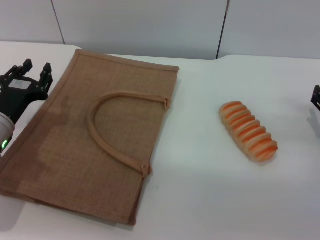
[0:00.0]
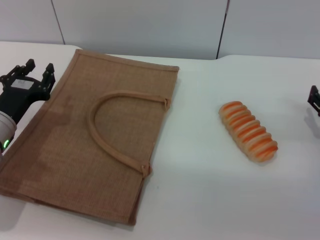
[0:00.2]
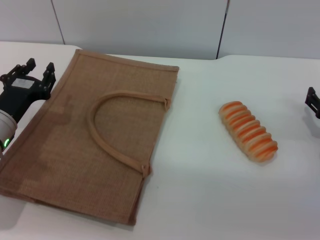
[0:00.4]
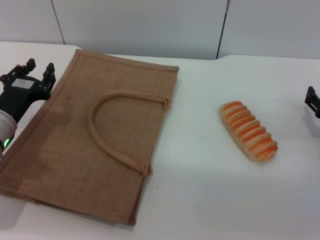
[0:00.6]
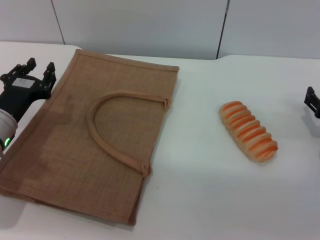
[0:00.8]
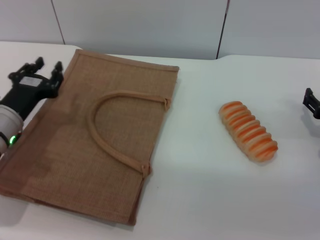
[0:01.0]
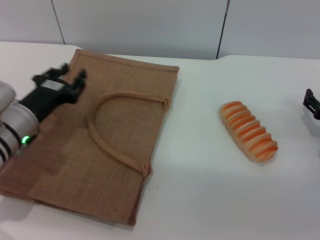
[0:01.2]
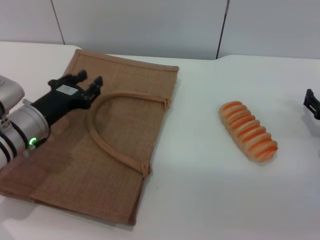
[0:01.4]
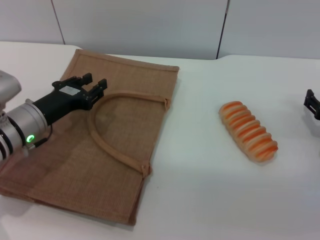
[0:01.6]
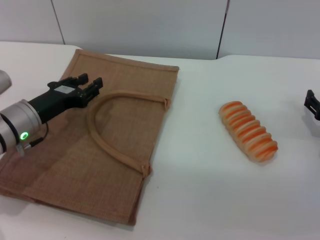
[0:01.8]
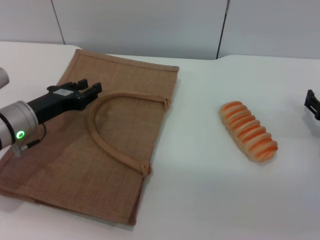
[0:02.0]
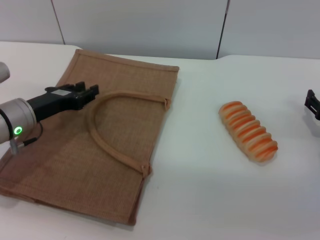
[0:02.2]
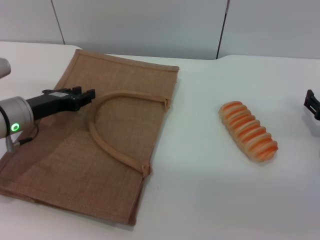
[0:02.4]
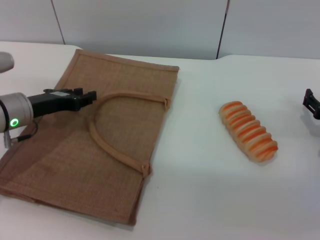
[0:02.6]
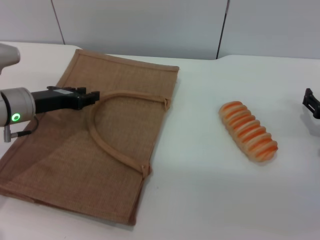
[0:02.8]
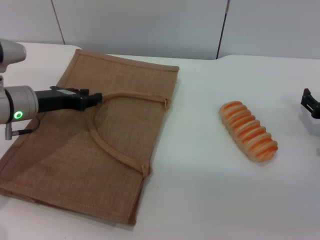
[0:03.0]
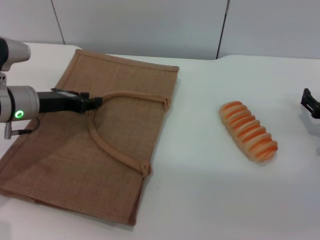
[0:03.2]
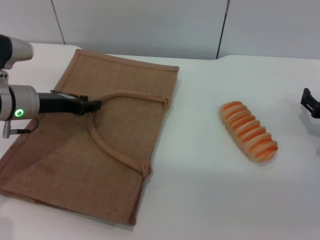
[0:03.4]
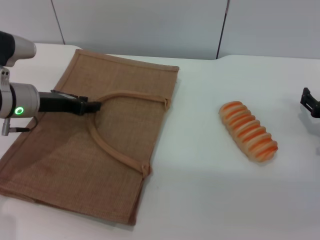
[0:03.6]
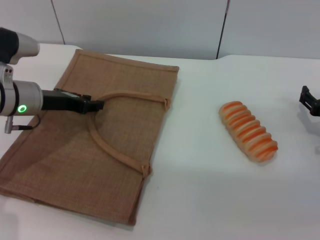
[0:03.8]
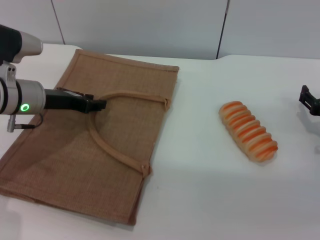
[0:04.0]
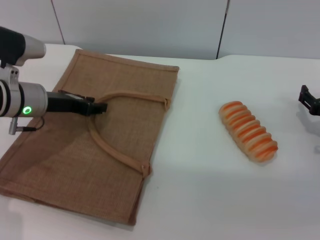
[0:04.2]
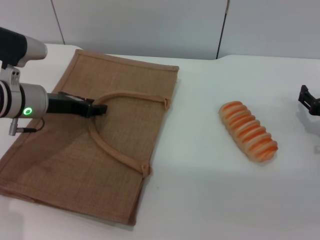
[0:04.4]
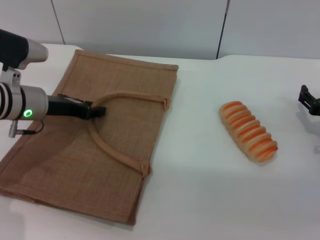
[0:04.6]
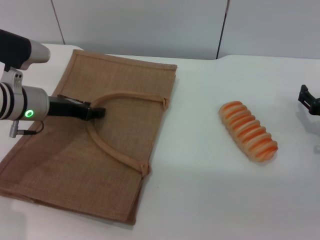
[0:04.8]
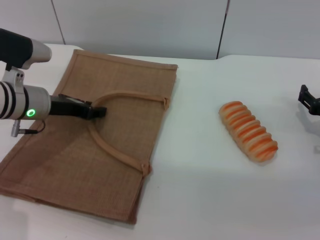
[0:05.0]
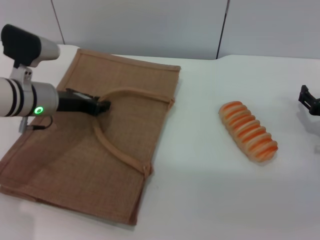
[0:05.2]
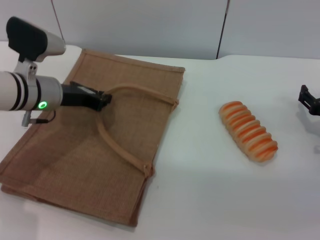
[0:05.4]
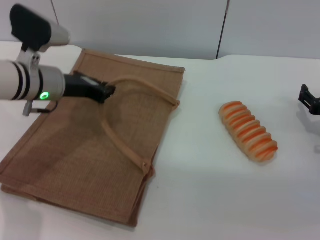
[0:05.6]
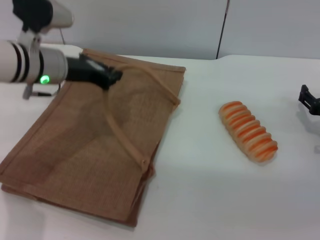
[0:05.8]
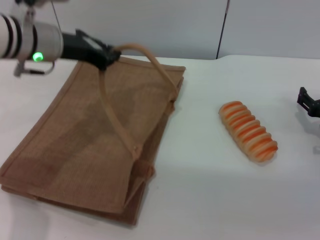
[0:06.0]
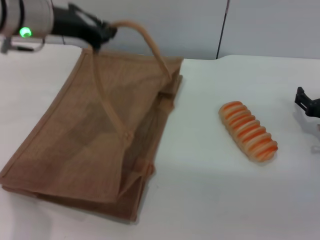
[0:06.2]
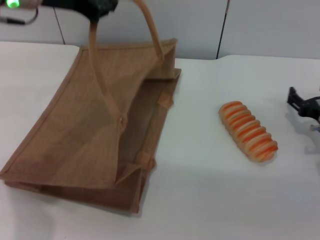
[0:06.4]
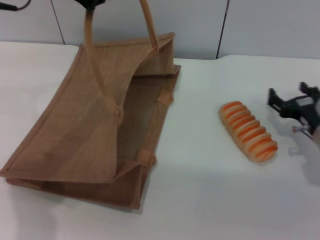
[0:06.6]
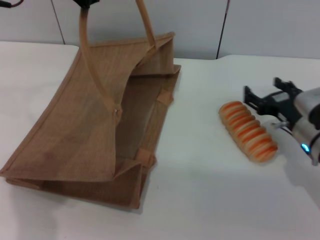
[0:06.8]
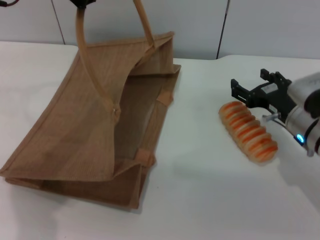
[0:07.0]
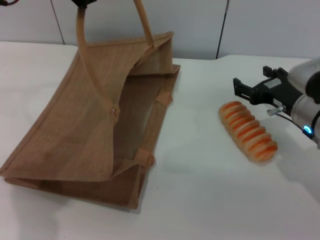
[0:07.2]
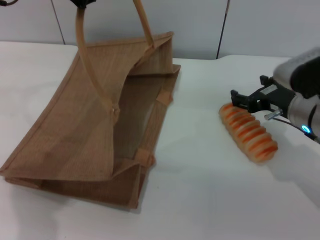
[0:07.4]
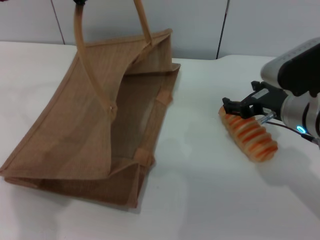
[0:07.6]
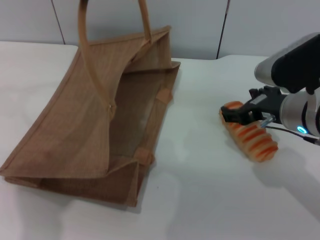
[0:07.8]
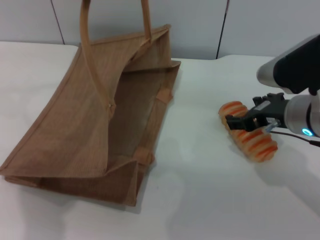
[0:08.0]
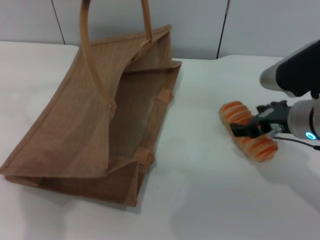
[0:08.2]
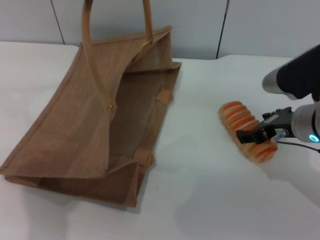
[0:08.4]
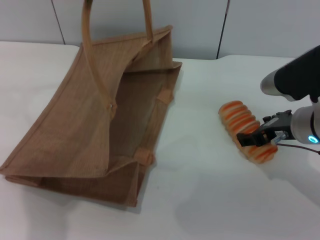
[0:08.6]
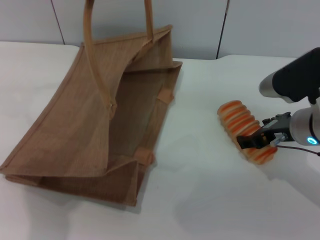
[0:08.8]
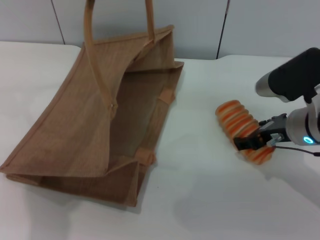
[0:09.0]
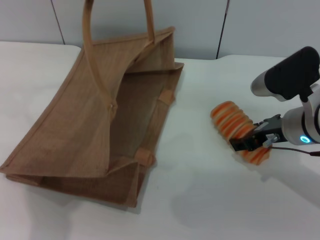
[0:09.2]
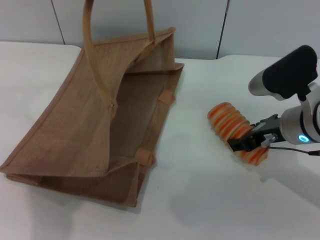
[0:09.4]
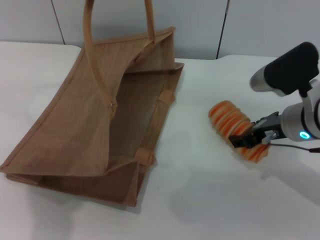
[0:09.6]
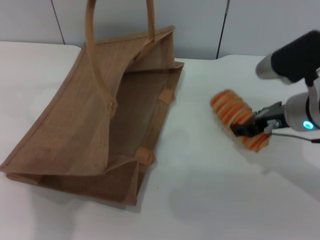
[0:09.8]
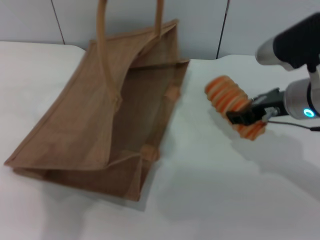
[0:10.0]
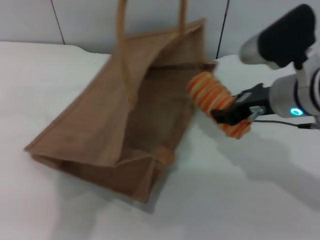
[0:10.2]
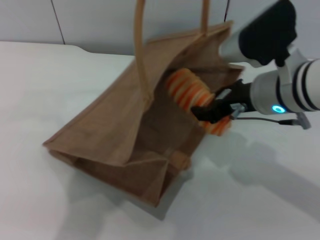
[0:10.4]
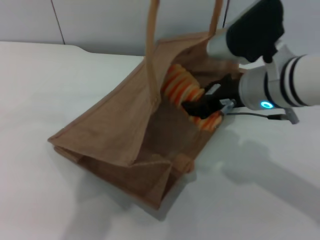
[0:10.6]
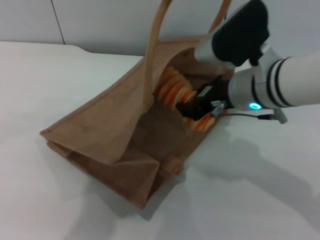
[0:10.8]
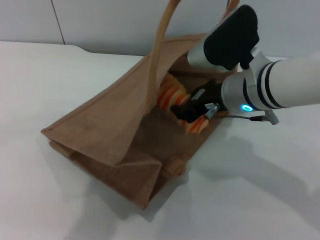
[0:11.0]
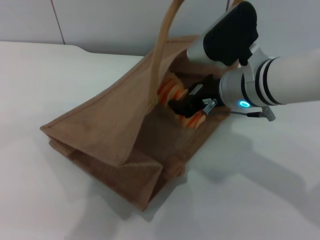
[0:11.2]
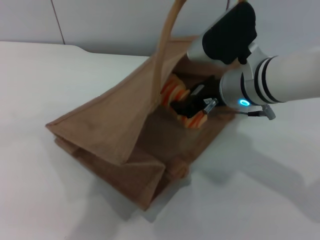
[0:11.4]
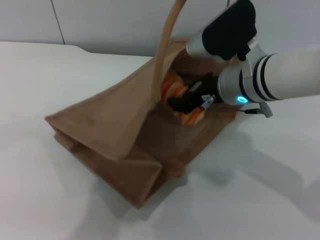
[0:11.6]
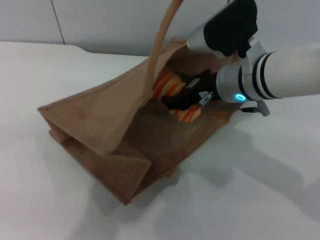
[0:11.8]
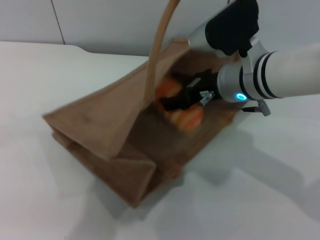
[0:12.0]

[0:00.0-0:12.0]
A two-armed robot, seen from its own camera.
Task of the whole recording: pick up the bread from the table and place it in the brown handbag.
Step, 0:00.0 to 0:06.2: Lift the woven bag with the left gripper to open it.
Step, 0:06.4 to 0:09.8: Pick up the bread with the right gripper.
0:01.6 to 0:03.0: The left gripper changes place by some 5 cm.
0:03.0 to 0:04.4: The grippers move only a little.
0:04.4 to 0:06.0: The left gripper goes some 10 cm upward, and closes up.
0:06.0 to 0:07.6: The right gripper shifts about 15 cm to the left and upward. The left gripper shifts some 10 cm upward.
0:09.0 to 0:10.4: The left gripper goes some 5 cm to the right; the right gripper moves upward and to the left, approximately 10 cm, and closes its fingers.
0:10.4 to 0:12.0: The right gripper moves about 5 cm.

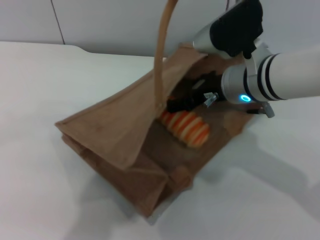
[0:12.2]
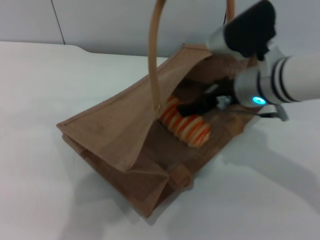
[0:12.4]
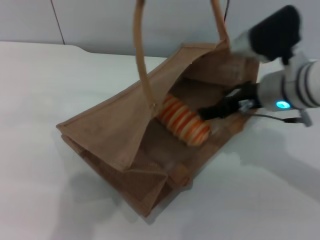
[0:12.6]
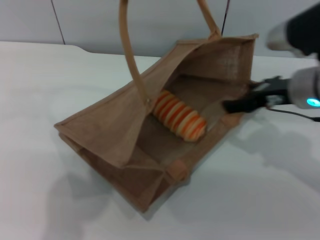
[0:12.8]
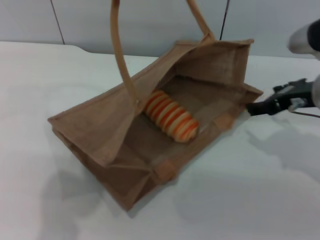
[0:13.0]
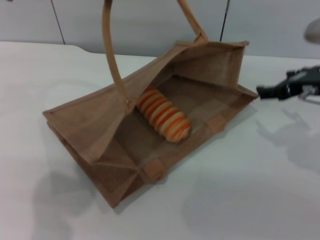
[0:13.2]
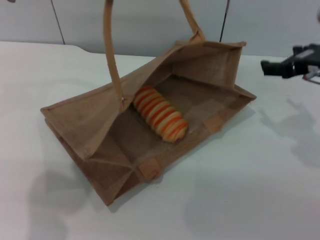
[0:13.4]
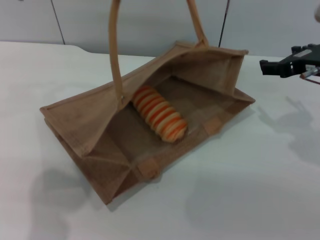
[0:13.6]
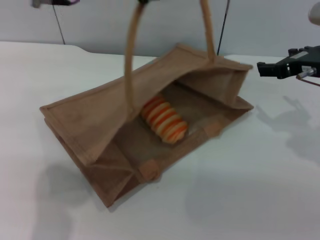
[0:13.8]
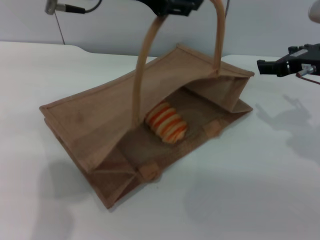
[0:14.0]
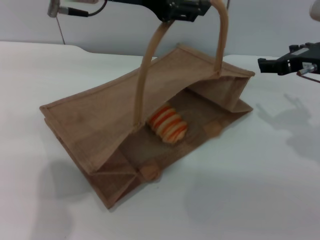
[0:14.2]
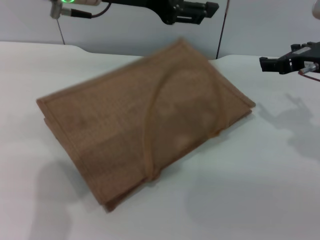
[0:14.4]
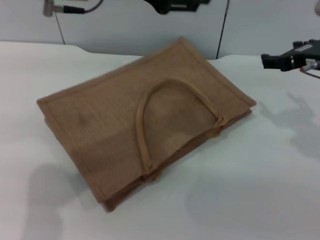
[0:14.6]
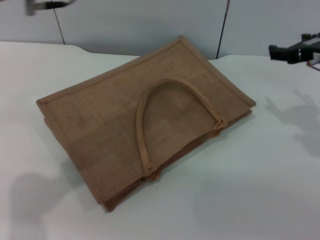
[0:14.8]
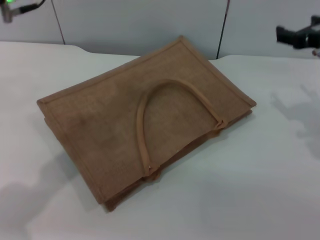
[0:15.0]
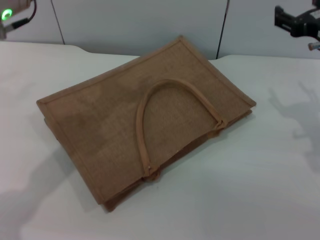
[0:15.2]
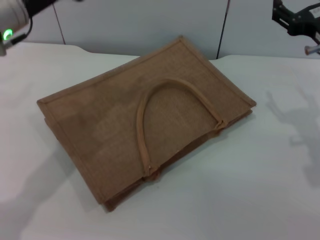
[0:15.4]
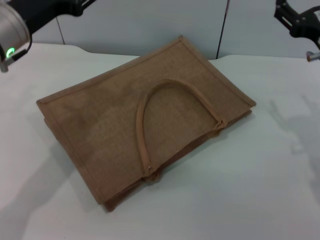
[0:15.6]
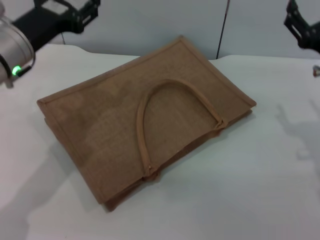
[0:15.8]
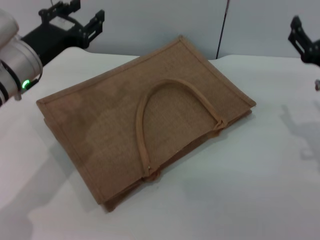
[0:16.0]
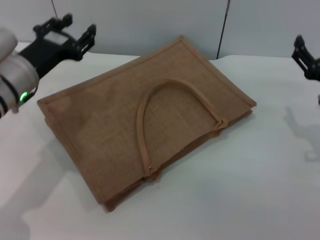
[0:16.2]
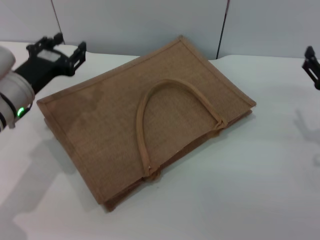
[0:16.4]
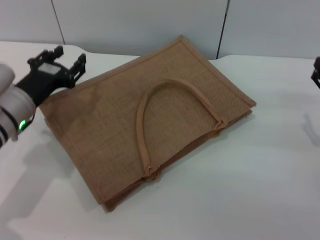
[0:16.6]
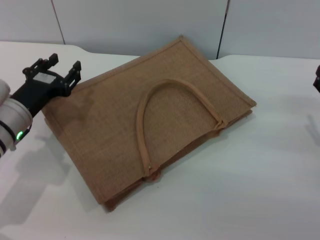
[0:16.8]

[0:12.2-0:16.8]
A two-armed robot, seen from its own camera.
Task of the whole recording: pick up the bread from the table and place it in the brown handbag.
Step, 0:13.2 to 0:14.8: Lower the woven bag with the left gripper to close it.
0:12.2 to 0:13.8: The right gripper moves to the right, approximately 15 cm, while the left gripper travels to the left and downward by approximately 10 cm.
0:13.8 to 0:15.2: The left gripper moves to the left and downward, approximately 10 cm, and opens up.
0:15.2 to 0:16.8: The left gripper travels downward by about 20 cm. The right gripper moves downward, backward and to the right, about 15 cm.

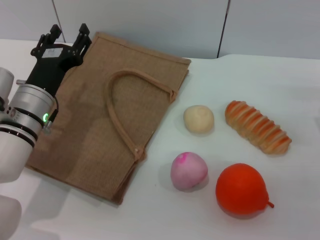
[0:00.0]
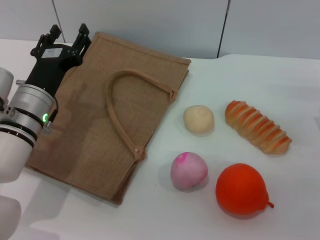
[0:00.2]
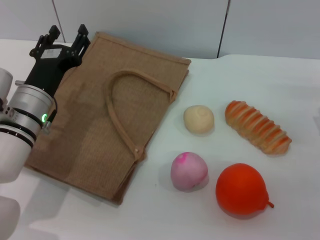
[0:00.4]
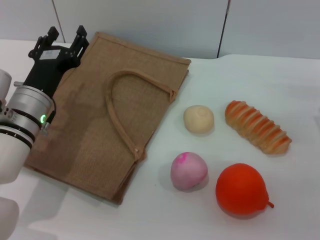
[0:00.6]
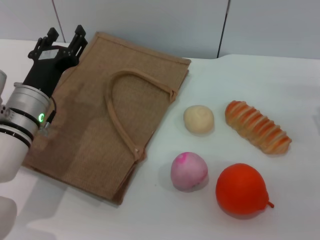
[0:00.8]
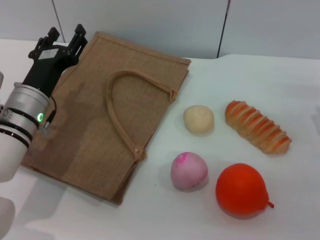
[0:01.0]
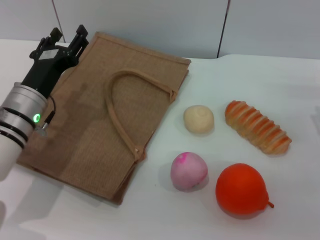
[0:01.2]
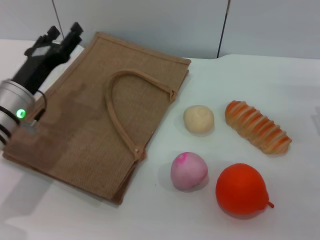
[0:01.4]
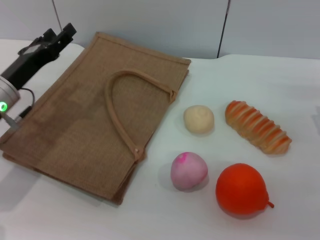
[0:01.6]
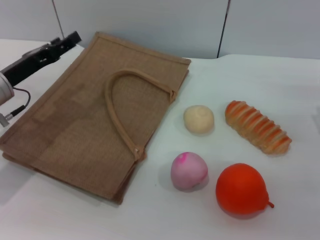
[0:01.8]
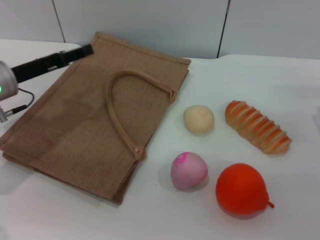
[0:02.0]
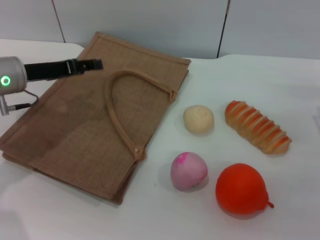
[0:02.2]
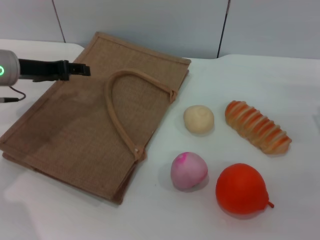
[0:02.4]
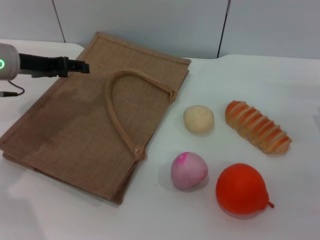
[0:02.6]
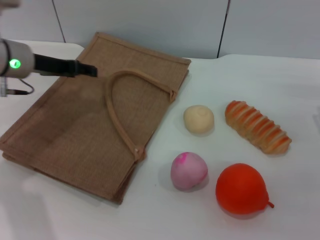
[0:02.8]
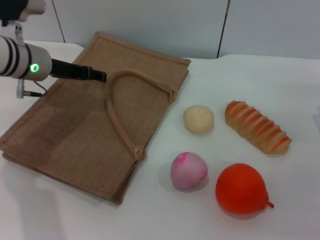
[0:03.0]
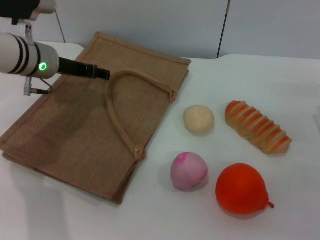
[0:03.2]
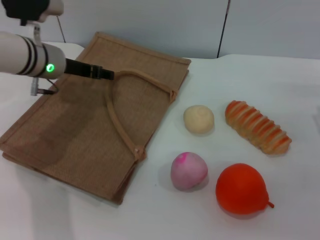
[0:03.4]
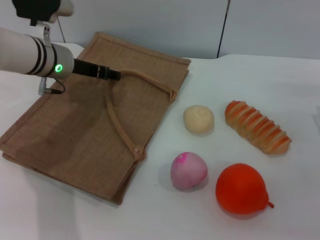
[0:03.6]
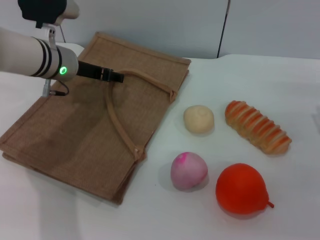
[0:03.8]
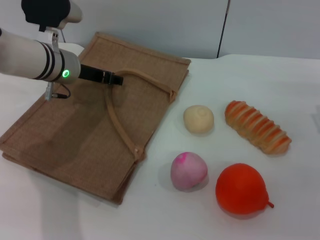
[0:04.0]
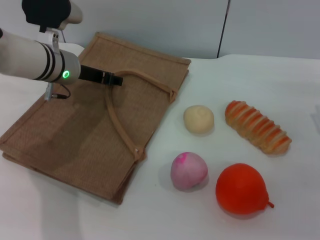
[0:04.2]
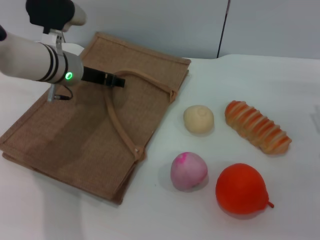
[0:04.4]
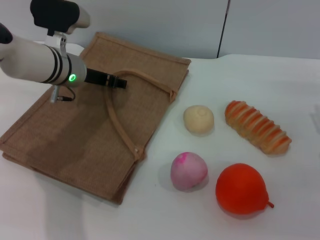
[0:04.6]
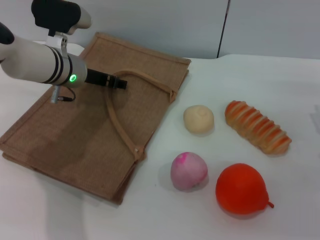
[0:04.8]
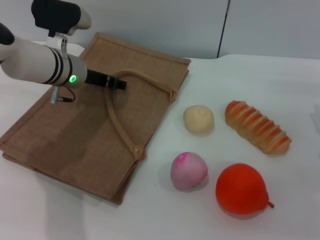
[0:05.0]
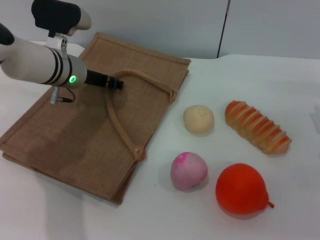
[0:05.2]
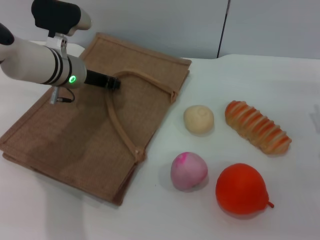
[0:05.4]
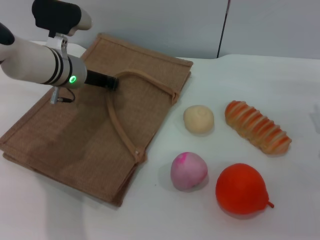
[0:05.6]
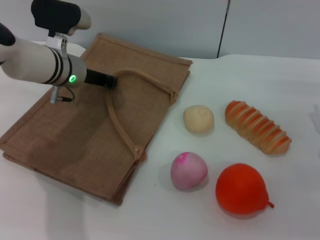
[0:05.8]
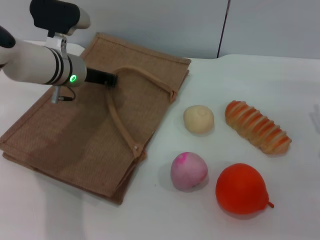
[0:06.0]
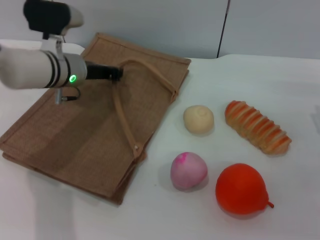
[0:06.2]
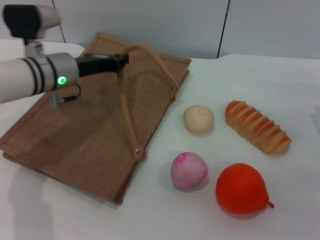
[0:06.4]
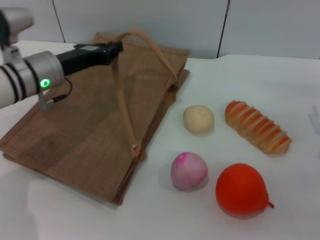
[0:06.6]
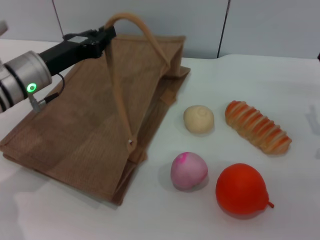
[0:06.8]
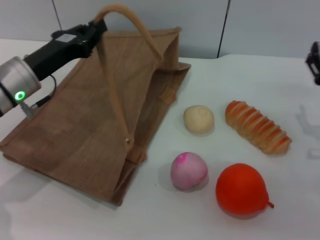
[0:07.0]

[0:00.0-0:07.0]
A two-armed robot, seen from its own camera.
Task of the whole recording: pick up the bread and egg yolk pastry from the table and place it in the brown handbag.
Step, 0:00.0 to 0:06.6: Lift the woven bag with the left gripper to open it.
0:00.0 to 0:01.4: The grippers stay close to where they were, moving slightly.
0:01.4 to 0:02.8: The left gripper shifts approximately 10 cm forward and upward.
0:02.8 to 0:04.2: The left gripper moves to the right, some 5 cm.
0:04.2 to 0:05.6: The left gripper closes its fingers.
0:05.6 to 0:07.0: The left gripper is displaced backward and to the left by roughly 10 cm.
